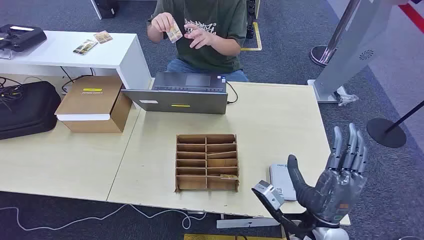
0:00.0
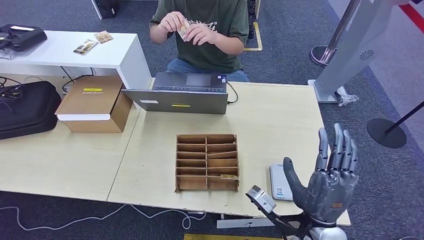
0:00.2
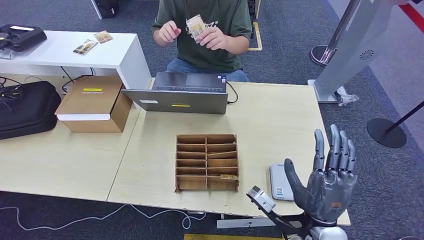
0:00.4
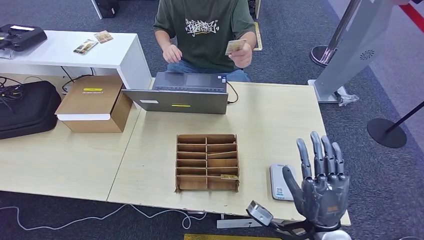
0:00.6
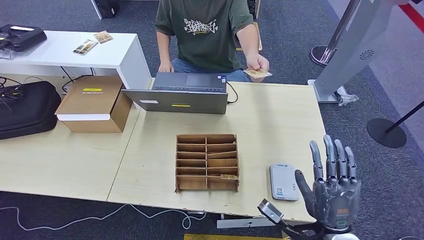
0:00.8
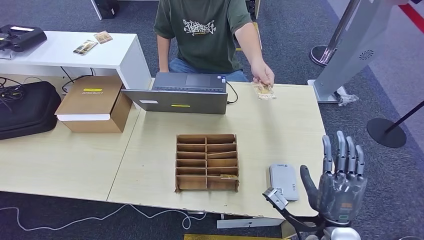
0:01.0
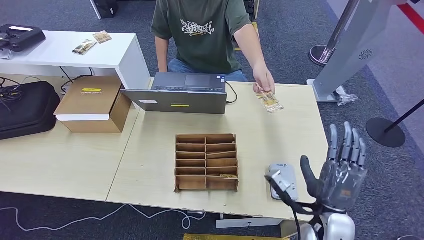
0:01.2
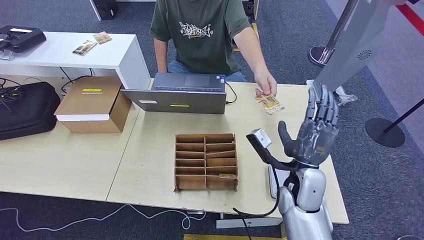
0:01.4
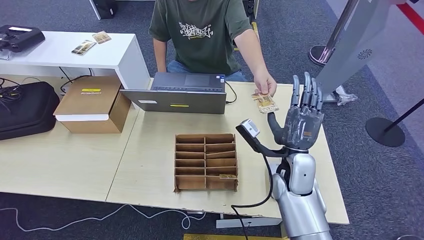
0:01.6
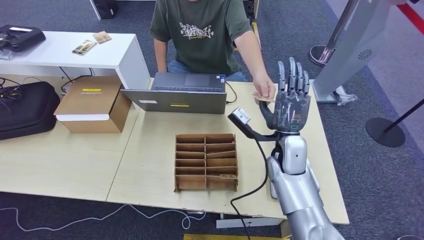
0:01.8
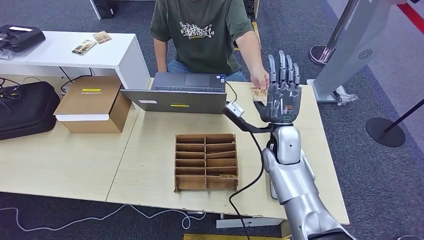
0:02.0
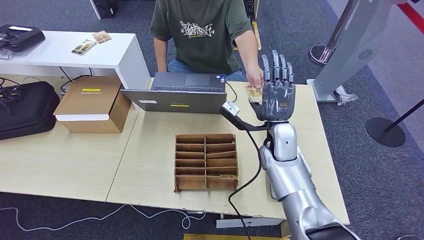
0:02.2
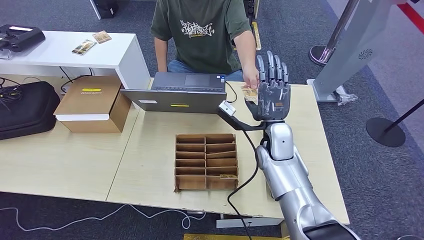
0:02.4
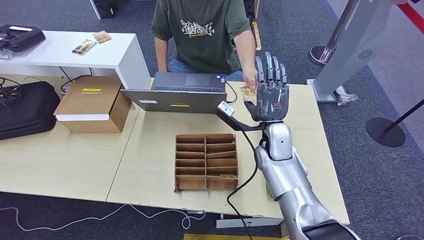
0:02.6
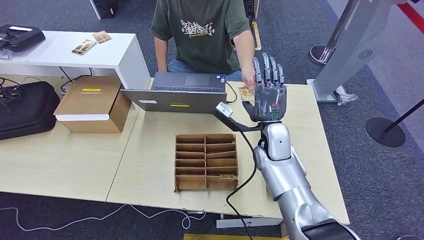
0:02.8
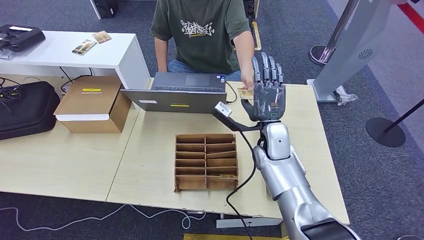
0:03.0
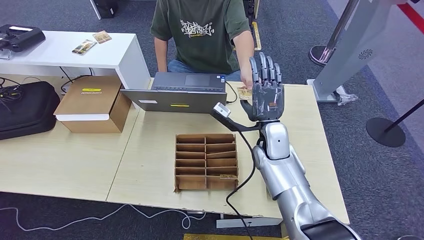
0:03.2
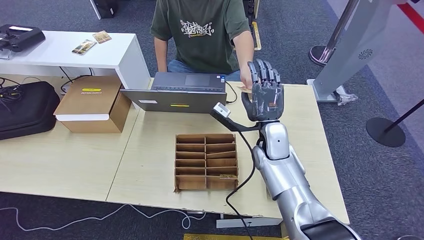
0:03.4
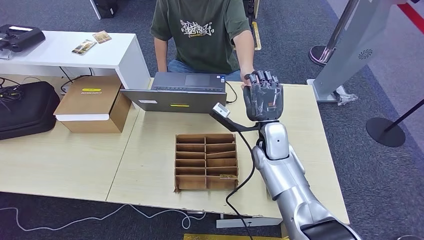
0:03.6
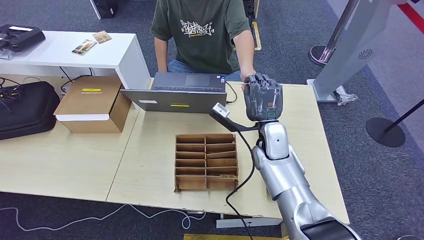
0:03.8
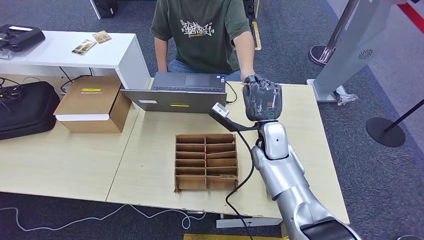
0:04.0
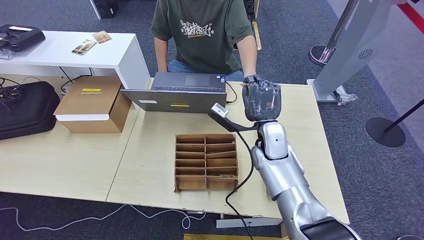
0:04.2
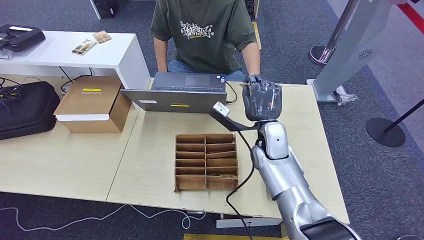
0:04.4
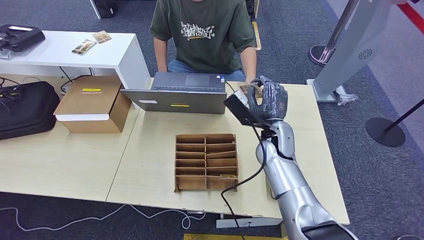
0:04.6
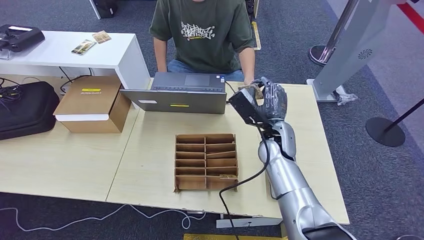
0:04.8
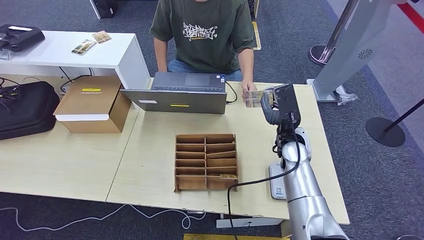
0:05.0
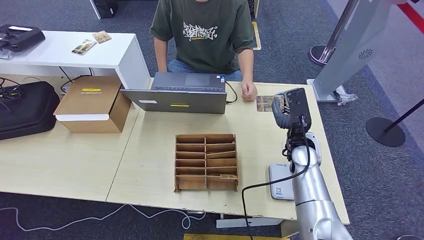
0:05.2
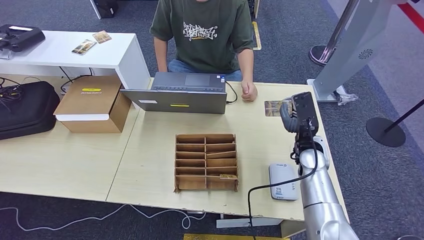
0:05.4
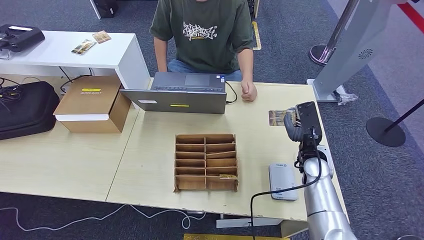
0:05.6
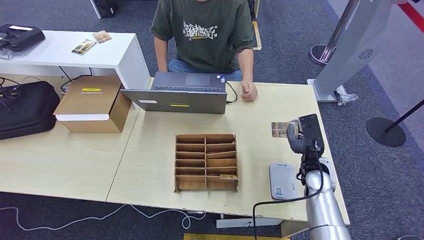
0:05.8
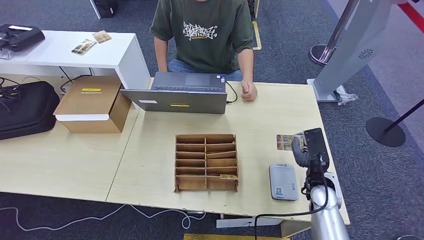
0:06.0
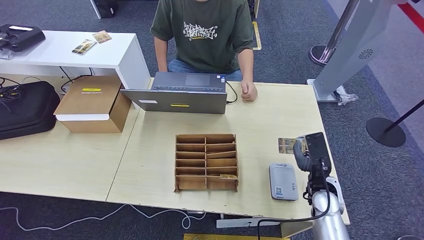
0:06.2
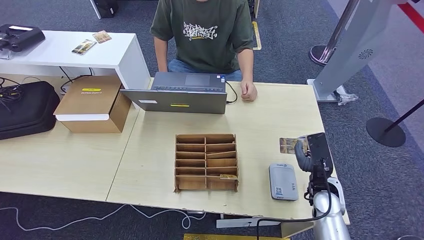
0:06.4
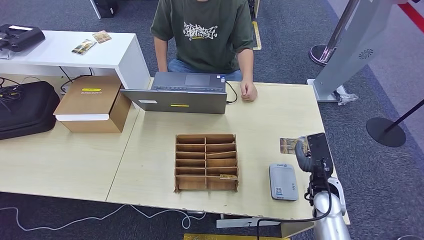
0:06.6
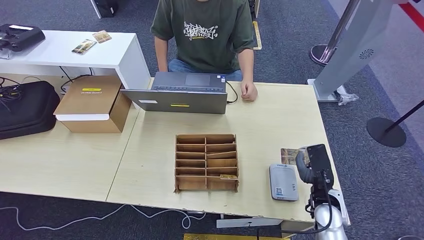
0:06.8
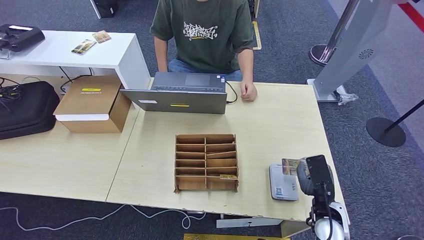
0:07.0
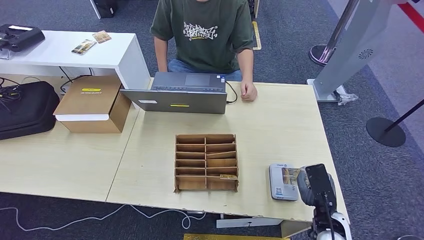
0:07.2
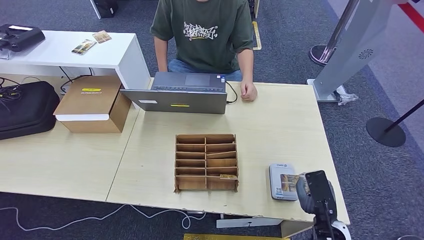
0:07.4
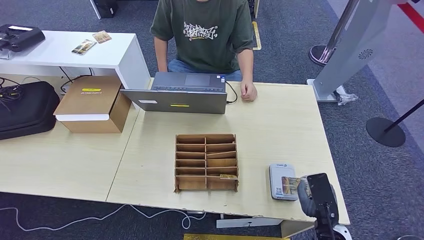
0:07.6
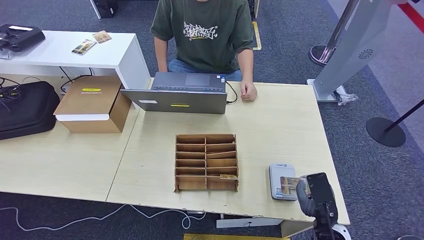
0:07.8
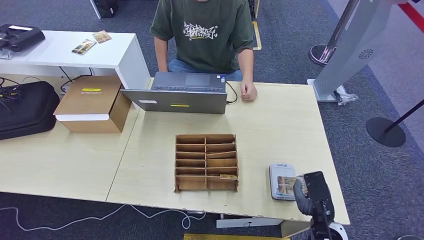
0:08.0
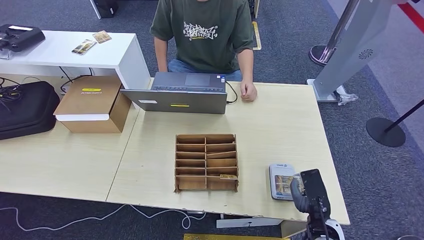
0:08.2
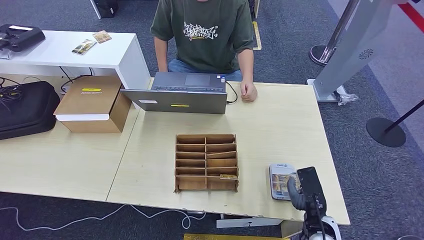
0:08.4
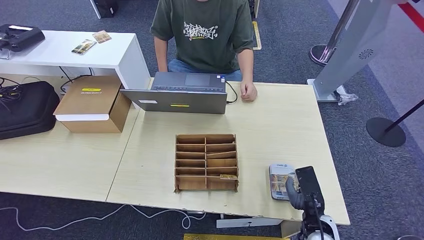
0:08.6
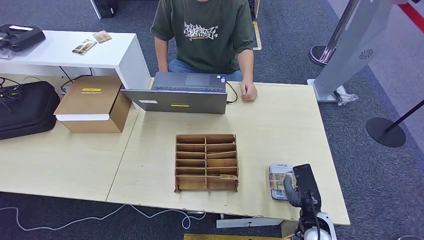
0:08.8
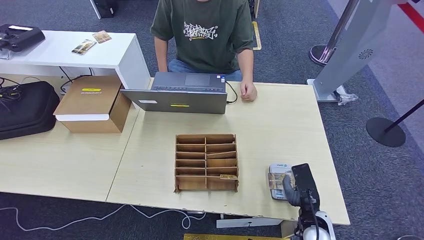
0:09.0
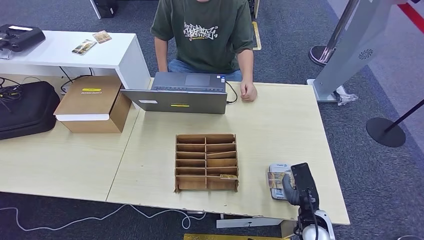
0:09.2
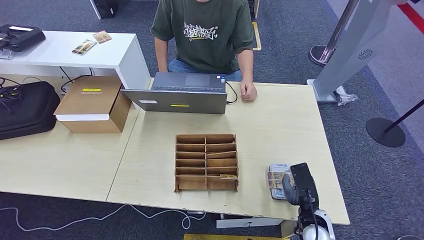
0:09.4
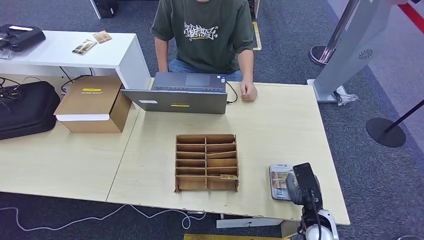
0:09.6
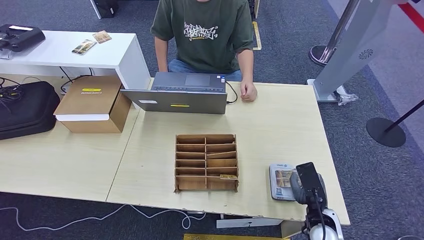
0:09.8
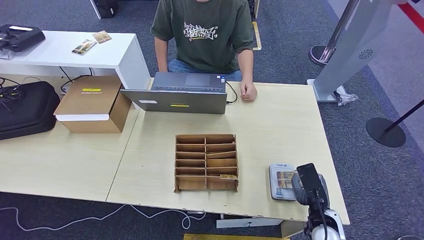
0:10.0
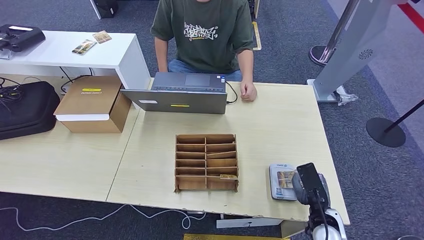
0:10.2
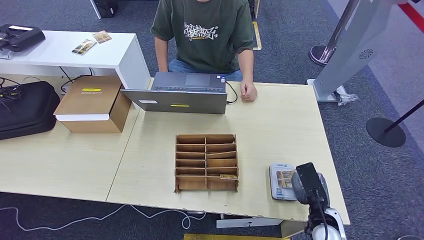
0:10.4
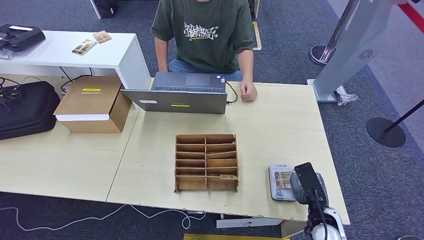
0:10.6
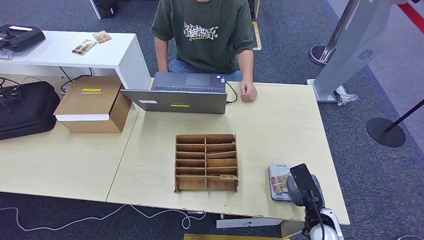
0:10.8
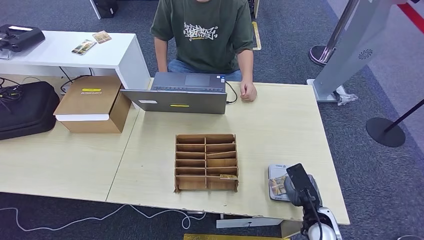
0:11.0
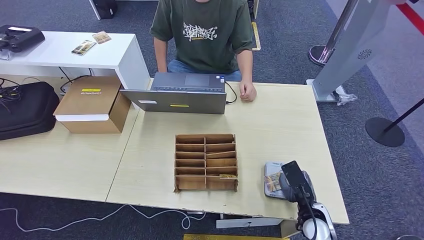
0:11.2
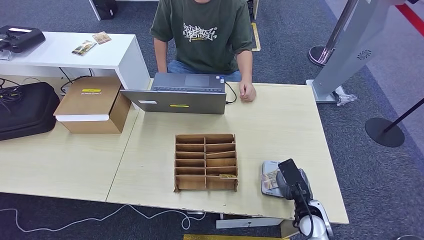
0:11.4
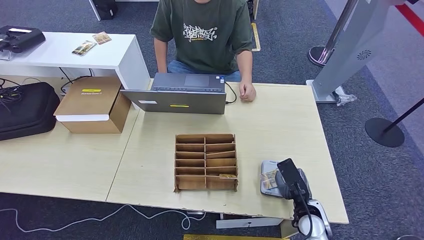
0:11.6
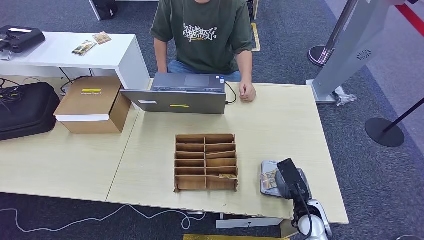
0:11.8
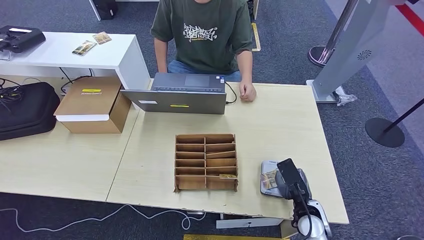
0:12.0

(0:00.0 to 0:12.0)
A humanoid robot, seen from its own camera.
Step, 0:00.0 - 0:04.8: Take the ID card from the person's hand.
Step, 0:05.2 - 0:10.6: Place the ID card on the card reader.
0:01.6 - 0:03.0: The right hand heads forward, covering some 10 cm.
0:03.0 - 0:04.4: The hands move only a little.
0:04.4 - 0:06.0: The right hand shifts some 20 cm to the right, backward and downward.
0:06.0 - 0:07.6: The right hand is displaced backward by approximately 15 cm.
0:07.6 - 0:10.4: The hands make only small movements.
0:10.4 - 0:12.0: The hands stay close to where they were, moving slightly.

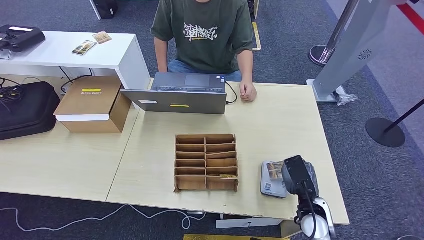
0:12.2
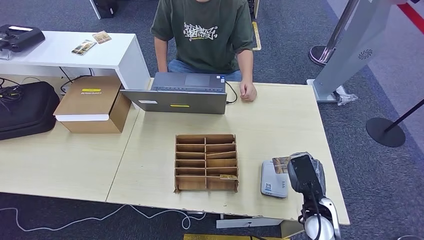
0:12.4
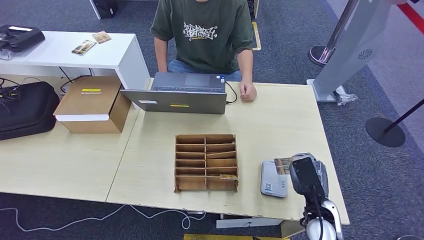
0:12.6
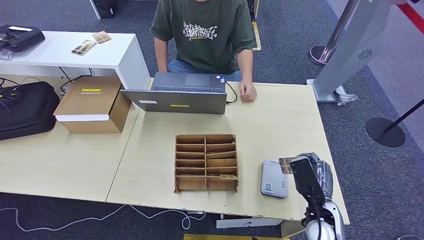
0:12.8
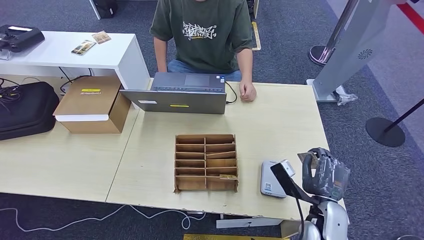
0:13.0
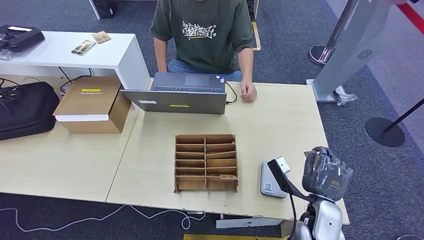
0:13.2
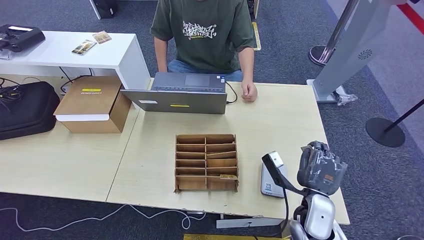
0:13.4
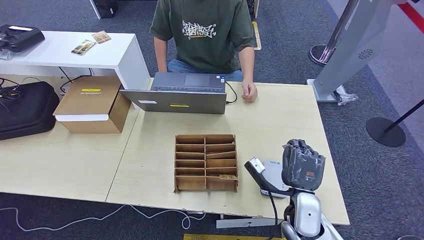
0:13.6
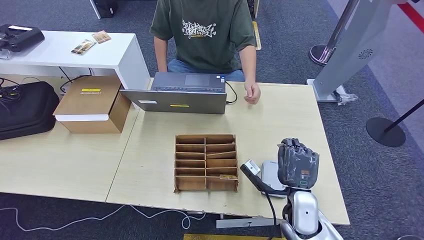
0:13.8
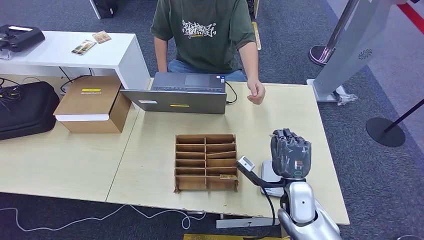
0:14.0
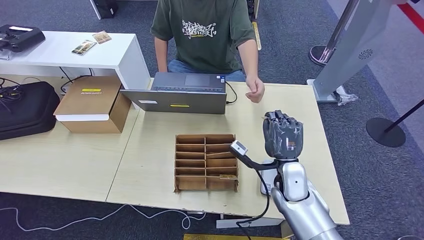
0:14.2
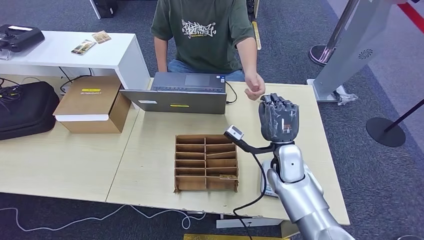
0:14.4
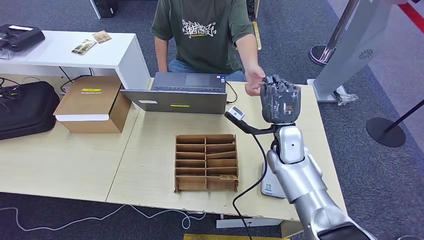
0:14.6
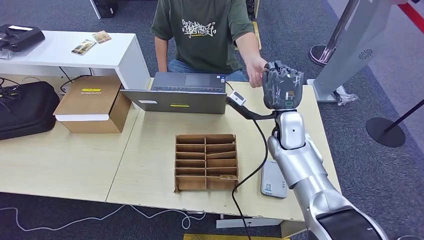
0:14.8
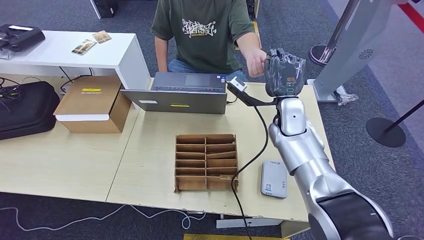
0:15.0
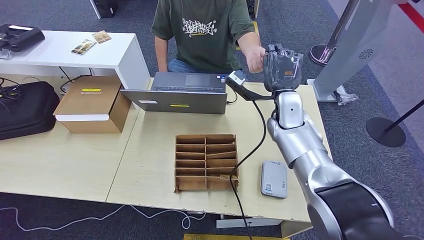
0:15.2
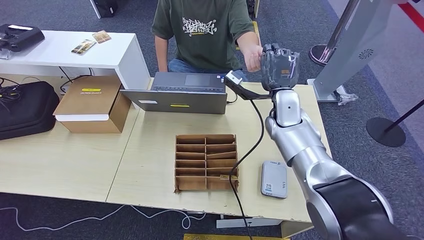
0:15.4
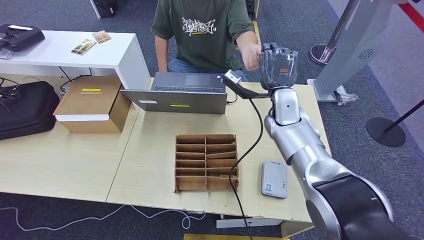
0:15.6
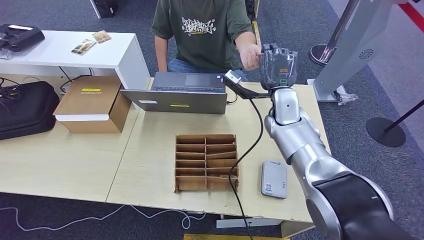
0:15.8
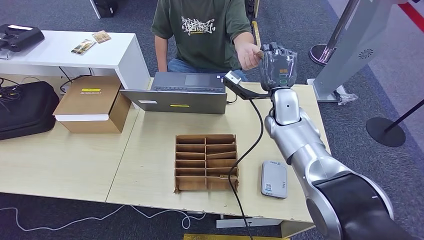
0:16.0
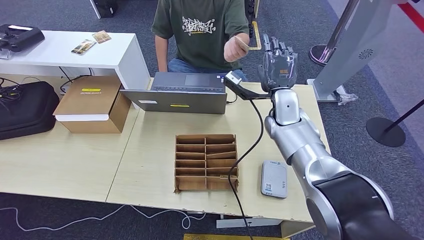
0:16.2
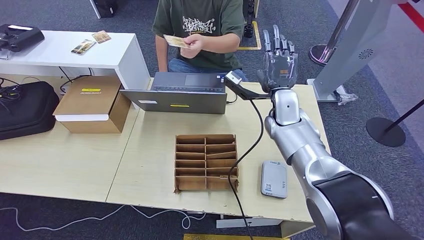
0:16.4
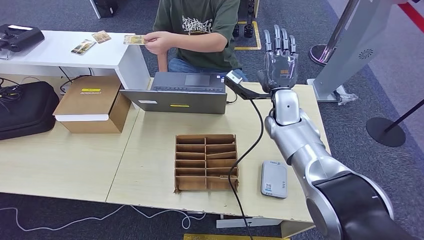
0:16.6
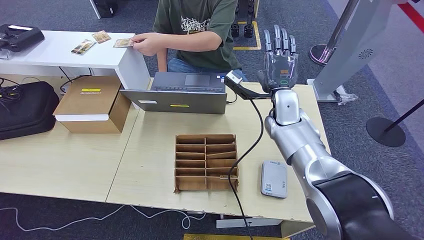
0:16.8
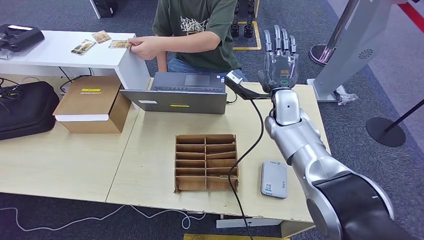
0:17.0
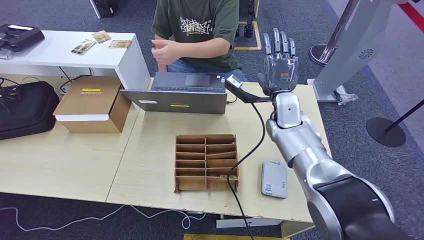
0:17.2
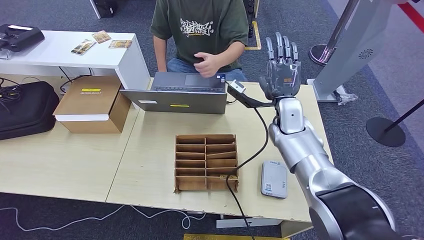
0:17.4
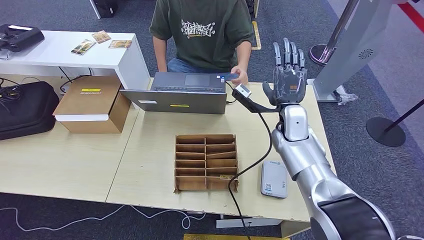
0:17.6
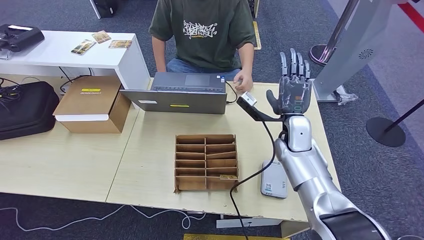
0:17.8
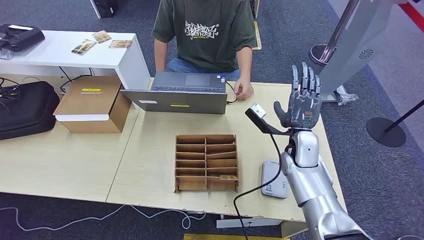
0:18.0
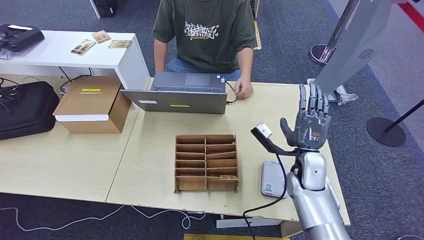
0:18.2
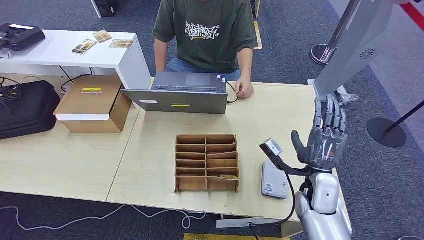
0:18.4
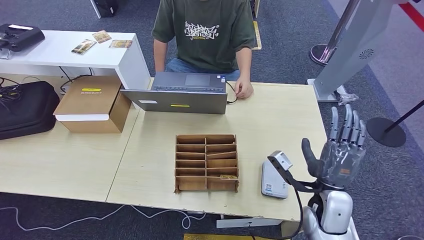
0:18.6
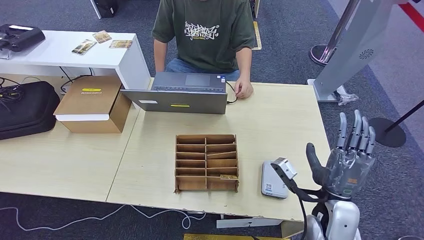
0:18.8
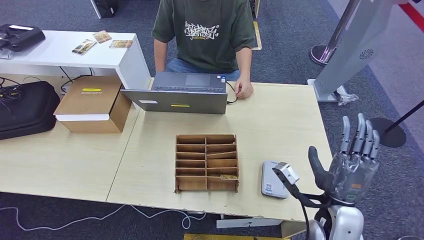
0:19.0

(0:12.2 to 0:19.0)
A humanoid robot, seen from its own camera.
Step, 0:12.2 - 0:16.4: Hand the ID card to the person.
0:12.2 - 0:13.6: The right hand shifts by about 5 cm.
0:13.6 - 0:15.0: The right hand heads forward and upward, covering some 25 cm.
0:15.0 - 0:17.6: The hands stay close to where they were, moving slightly.
0:17.6 - 0:19.0: The right hand shifts some 20 cm backward.
